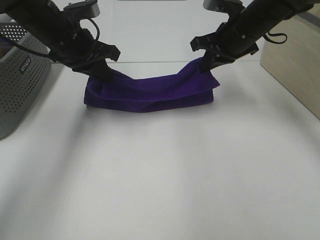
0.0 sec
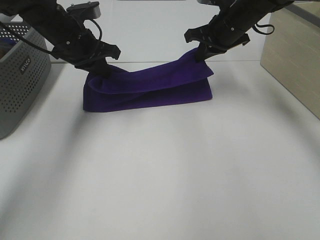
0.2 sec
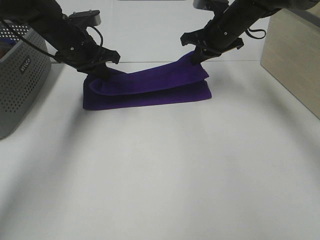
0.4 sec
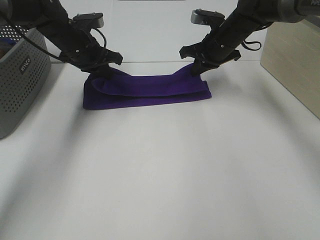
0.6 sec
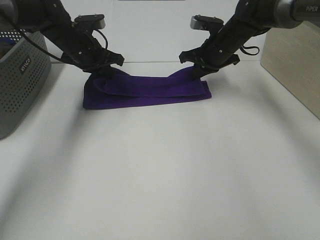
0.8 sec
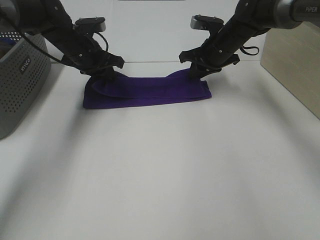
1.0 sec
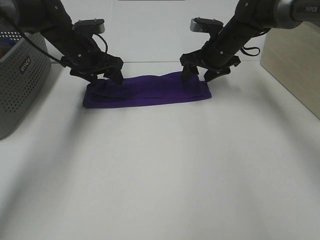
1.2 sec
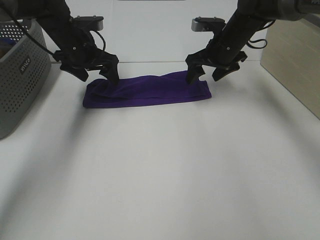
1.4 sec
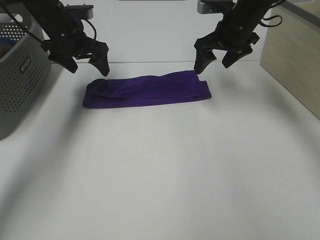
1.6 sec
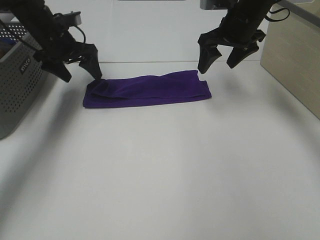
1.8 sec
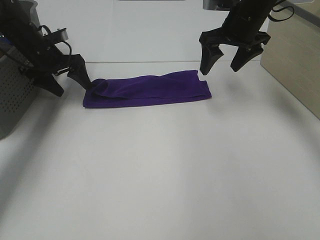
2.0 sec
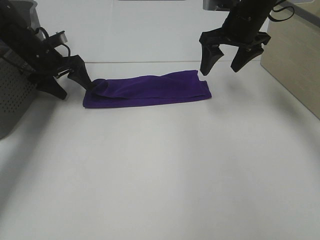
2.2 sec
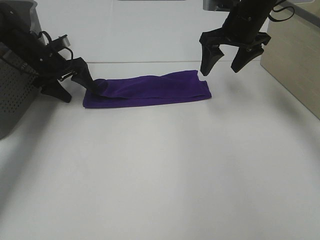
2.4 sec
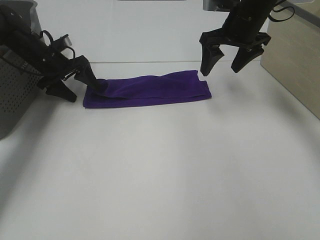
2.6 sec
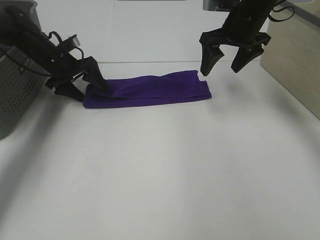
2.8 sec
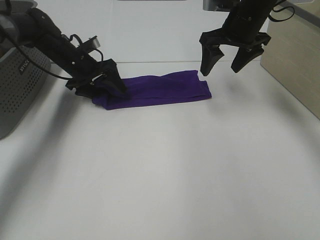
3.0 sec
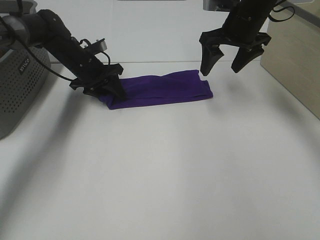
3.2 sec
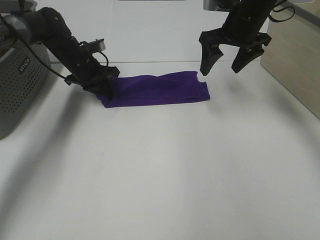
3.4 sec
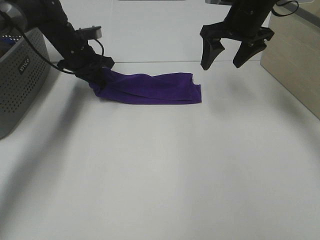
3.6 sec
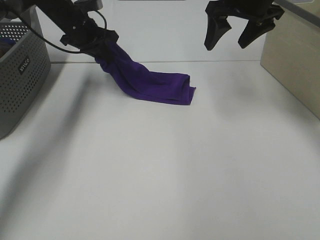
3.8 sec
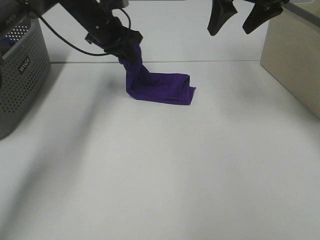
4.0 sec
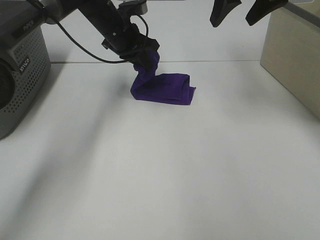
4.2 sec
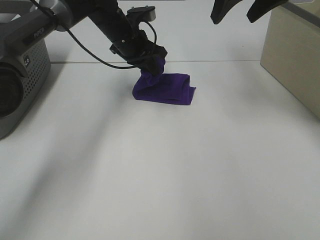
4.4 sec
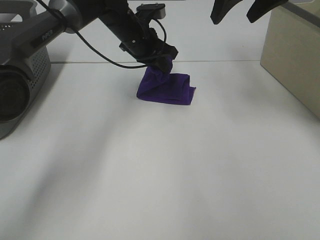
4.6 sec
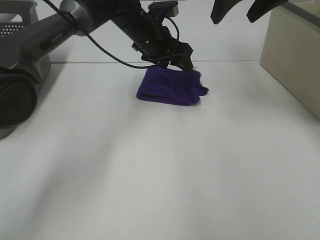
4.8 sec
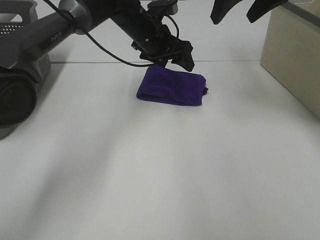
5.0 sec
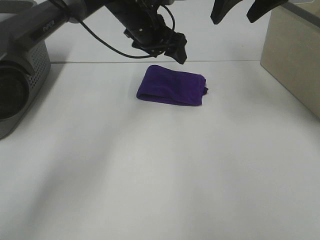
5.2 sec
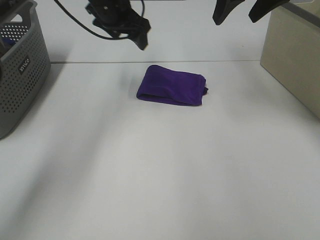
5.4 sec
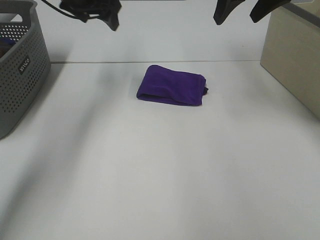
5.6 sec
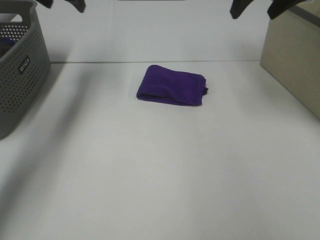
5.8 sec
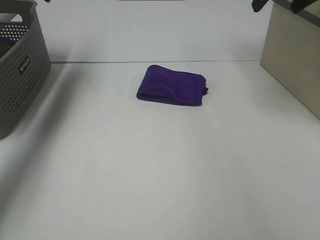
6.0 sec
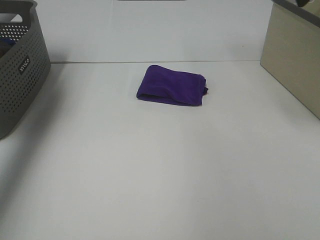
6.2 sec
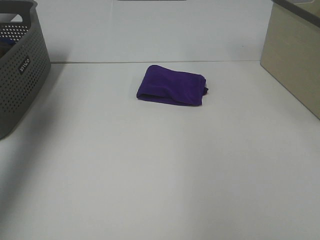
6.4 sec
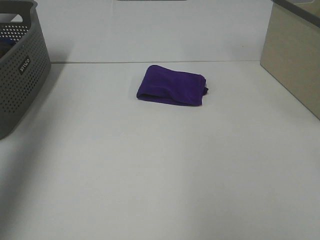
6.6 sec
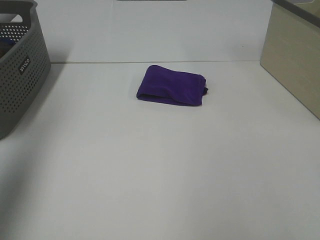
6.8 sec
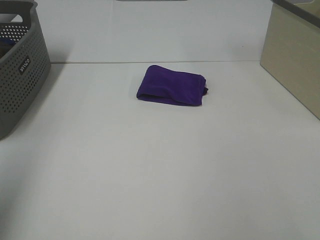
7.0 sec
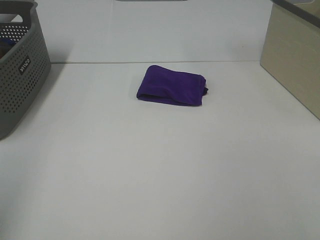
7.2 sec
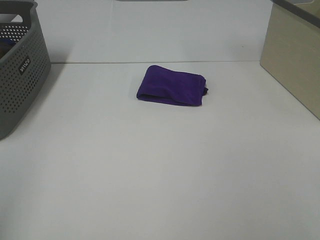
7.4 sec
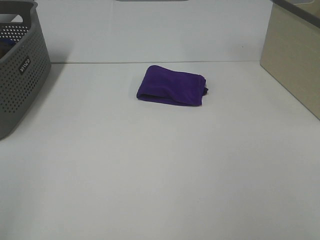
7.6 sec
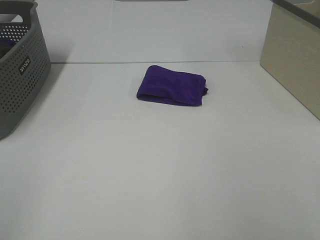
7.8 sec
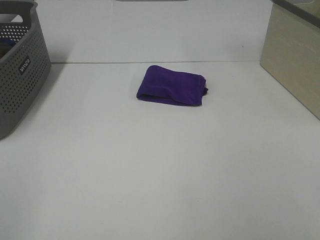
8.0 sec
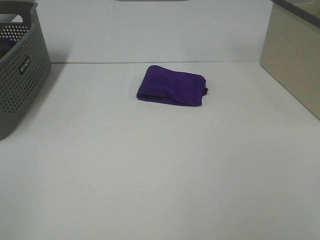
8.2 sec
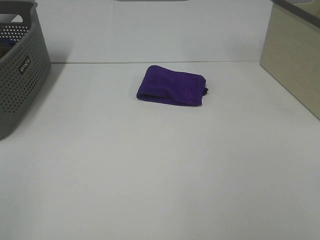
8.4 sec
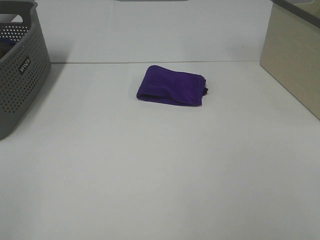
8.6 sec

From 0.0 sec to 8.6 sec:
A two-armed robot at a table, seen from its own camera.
Task of the whole recording: Fold towels.
Step, from 1.0 sec to 4.6 sec: Left hand: fold the purple towel from left to right.
From 0.0 sec to 1.4 sec: The left gripper is displaced forward by about 10 cm, and opens; the right gripper travels forward by some 5 cm, and opens.
From 1.4 sec to 2.8 sec: The right gripper travels upward by roughly 5 cm. The left gripper heads downward and to the left, covering roughly 10 cm.
From 2.8 sec to 4.4 sec: The left gripper heads to the right and upward, covering roughly 20 cm, and closes its fingers, while the right gripper heads upward, covering about 10 cm.
From 4.4 sec to 5.8 sec: The left gripper travels to the left and upward by some 20 cm, and opens its fingers.
From 5.8 sec to 7.2 sec: The grippers both shift backward by about 40 cm.

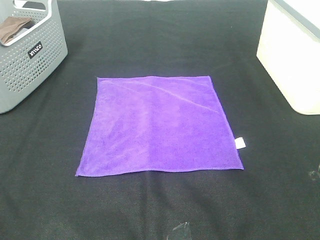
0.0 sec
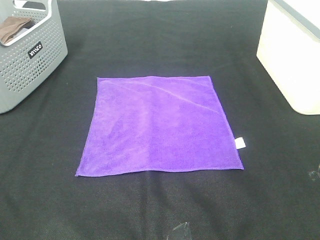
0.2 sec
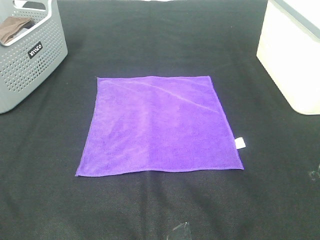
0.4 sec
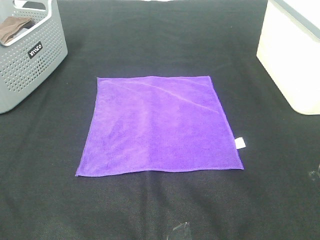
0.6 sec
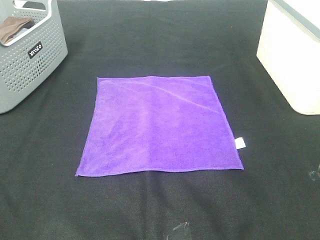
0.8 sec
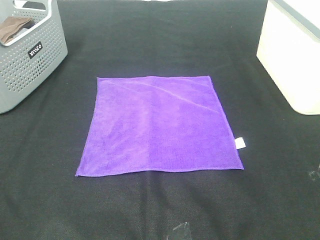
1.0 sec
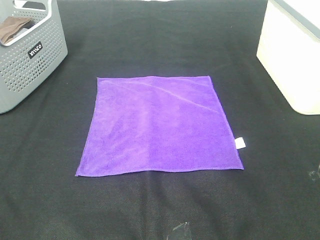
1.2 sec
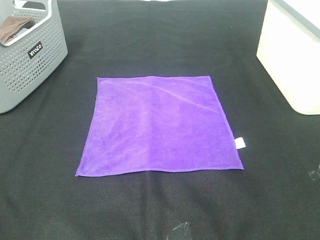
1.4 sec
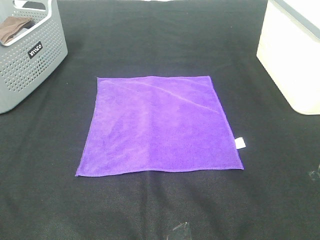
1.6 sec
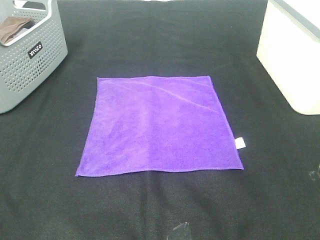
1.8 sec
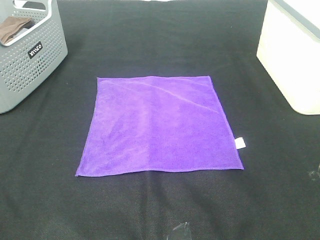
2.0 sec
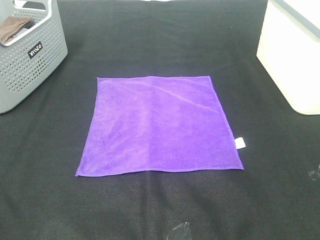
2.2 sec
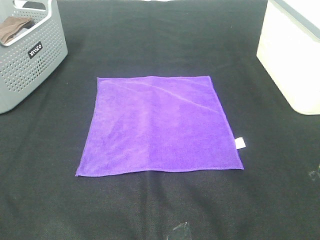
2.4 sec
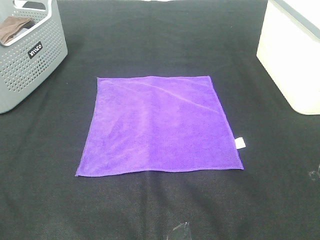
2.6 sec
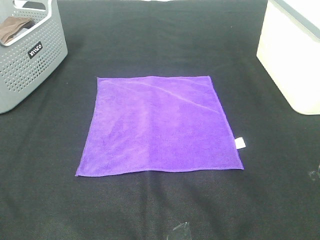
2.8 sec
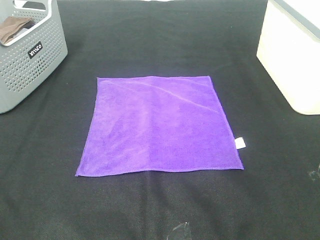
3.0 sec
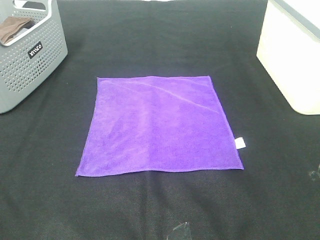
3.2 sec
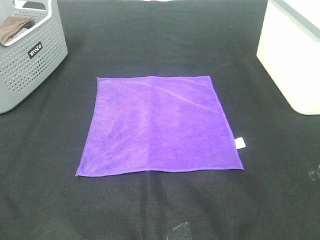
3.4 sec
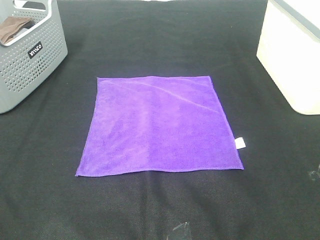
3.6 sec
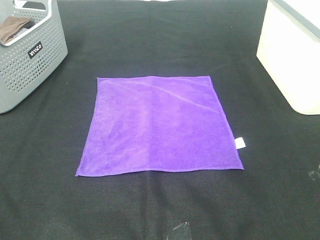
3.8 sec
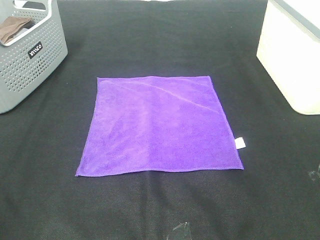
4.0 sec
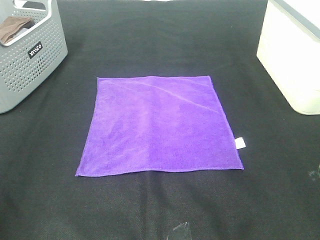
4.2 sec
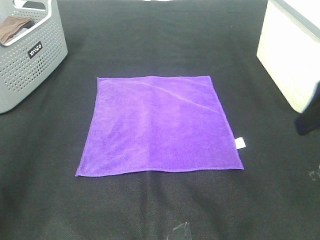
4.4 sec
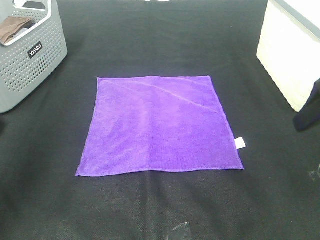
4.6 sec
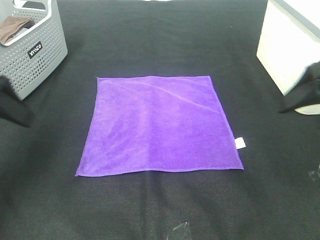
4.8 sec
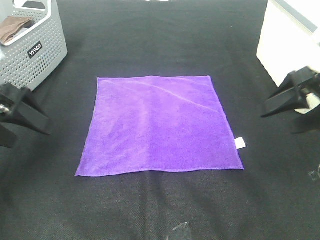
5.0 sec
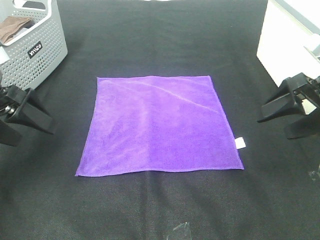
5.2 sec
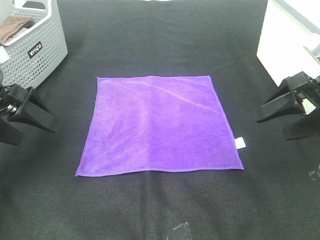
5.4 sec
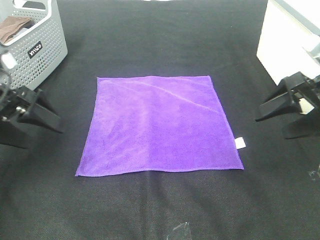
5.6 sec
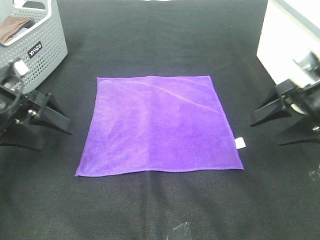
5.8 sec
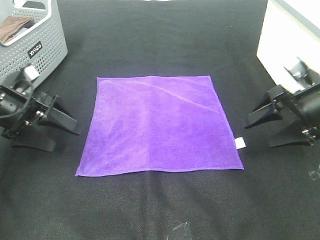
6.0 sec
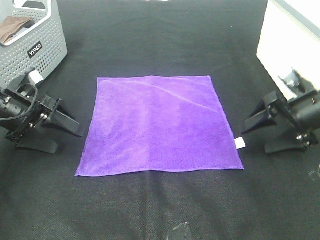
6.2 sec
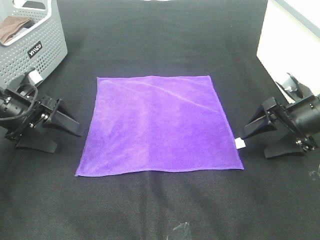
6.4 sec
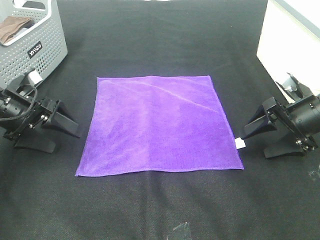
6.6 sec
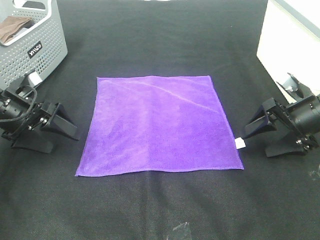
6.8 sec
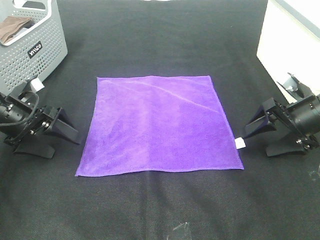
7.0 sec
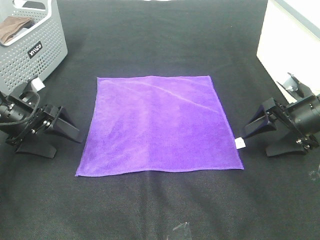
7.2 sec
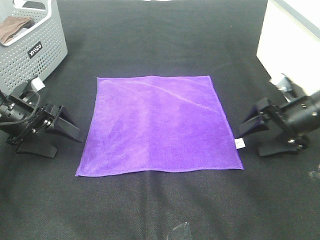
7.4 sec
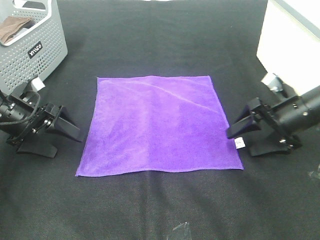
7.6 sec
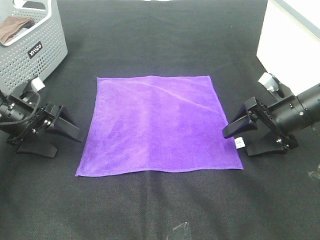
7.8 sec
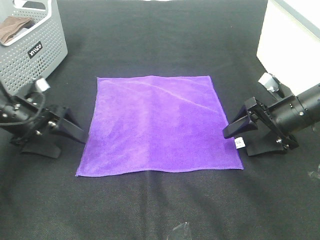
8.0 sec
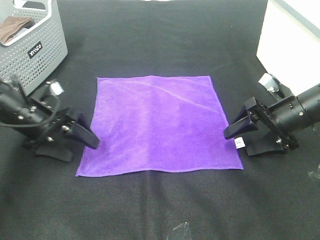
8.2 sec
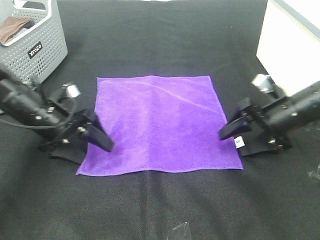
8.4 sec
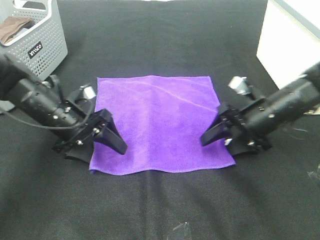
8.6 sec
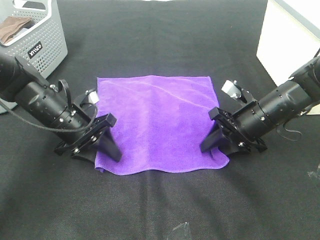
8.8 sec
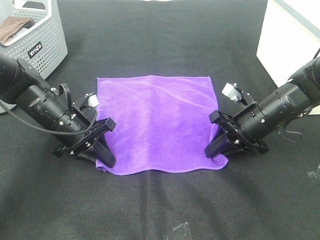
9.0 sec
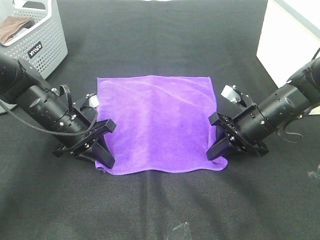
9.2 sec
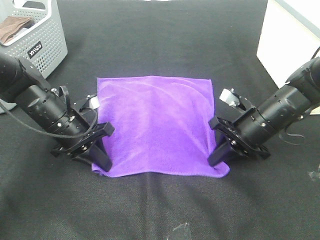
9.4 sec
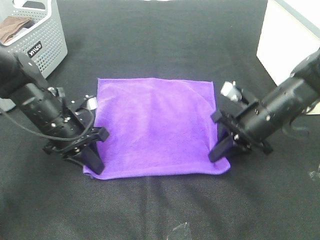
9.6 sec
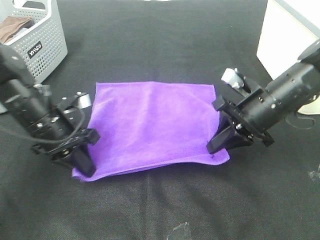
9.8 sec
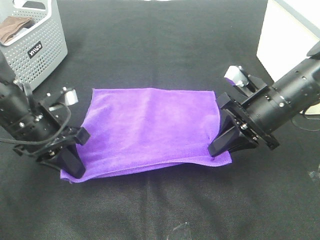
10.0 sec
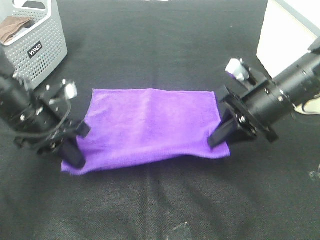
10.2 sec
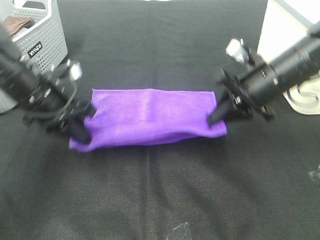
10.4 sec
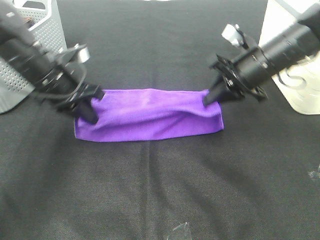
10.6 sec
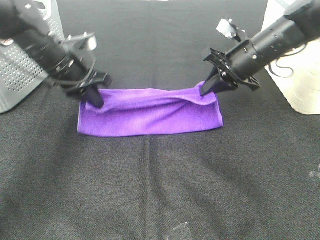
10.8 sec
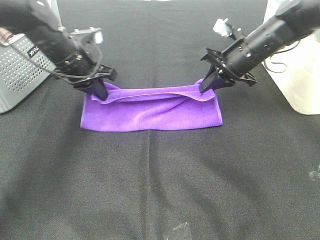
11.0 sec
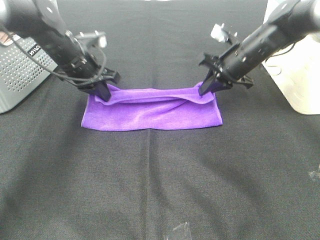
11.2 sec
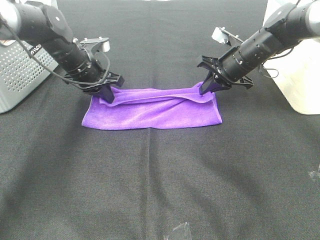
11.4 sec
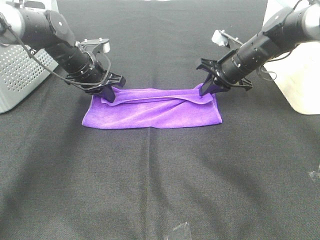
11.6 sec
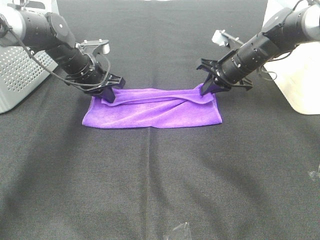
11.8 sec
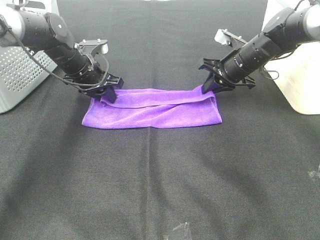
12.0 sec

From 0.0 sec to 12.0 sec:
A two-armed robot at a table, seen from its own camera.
Task of the whole recording: Fold towels.
Step, from 0.0 sec to 9.0 sec: Left hand: grab the bottom left corner of purple towel.
Step, from 0.0 sec to 9.0 sec: Right hand: grab the bottom right corner of purple towel.
Step, from 9.2 sec to 11.6 sec: Left hand: fold the purple towel up.
Step, from 9.2 sec to 11.6 sec: Right hand: fold the purple towel up.
From 0.0 sec to 3.0 sec: Both grippers stay about where they are.
From 3.0 sec to 4.4 sec: The two grippers go roughly 20 cm forward.
From 4.4 sec to 6.0 sec: Both grippers travel together downward and forward, some 20 cm.
From 6.0 sec to 7.6 sec: The right gripper shifts by roughly 5 cm.
From 7.6 sec to 9.0 sec: The right gripper moves to the left, approximately 5 cm, and closes up. Meanwhile the left gripper moves to the right, roughly 10 cm, and closes.
From 9.0 sec to 10.4 sec: Both grippers move upward, about 10 cm.
From 10.4 sec to 12.0 sec: The right gripper is displaced forward and downward by roughly 15 cm; the left gripper moves forward, some 15 cm, and opens up.

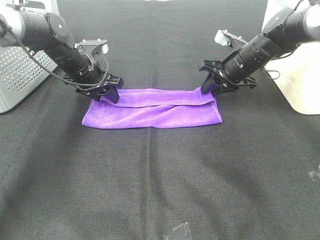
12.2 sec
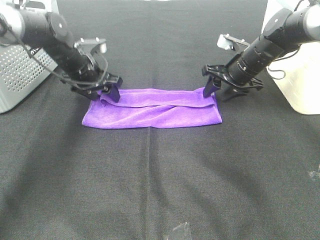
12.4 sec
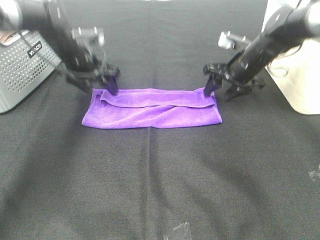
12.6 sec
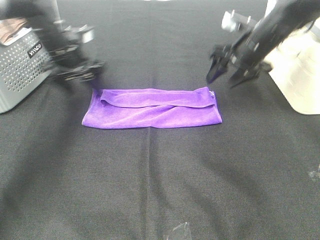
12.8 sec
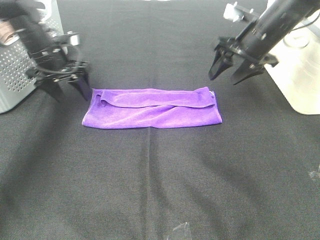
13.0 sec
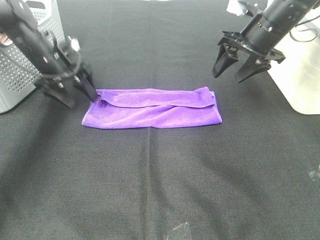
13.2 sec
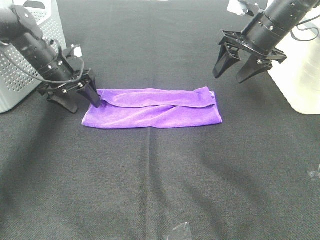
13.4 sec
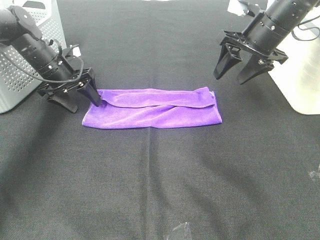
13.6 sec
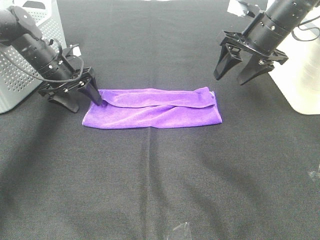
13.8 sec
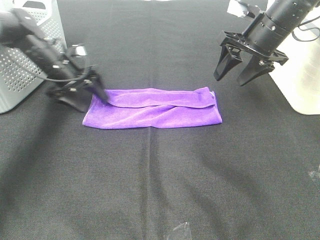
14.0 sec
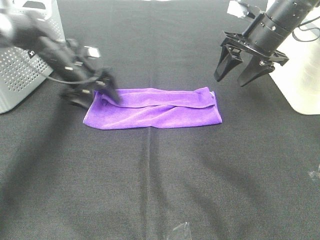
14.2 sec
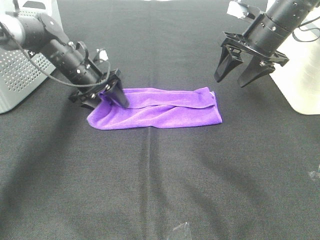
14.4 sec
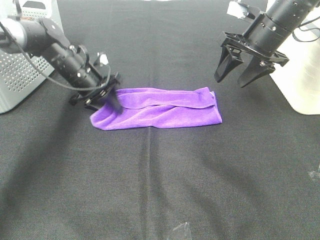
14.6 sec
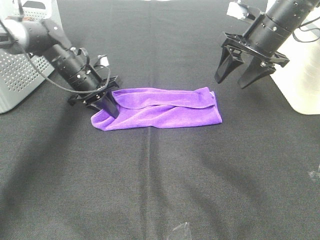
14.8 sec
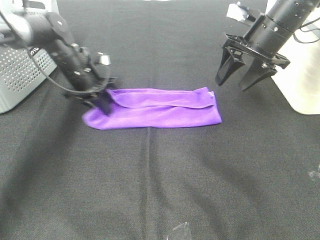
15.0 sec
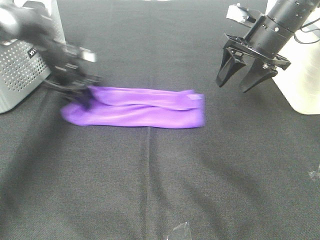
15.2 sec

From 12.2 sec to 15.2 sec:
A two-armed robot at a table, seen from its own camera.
Task of the whole recording: Fold towels.
From 12.2 sec to 13.8 sec: The right gripper shifts roughly 10 cm upward. Meanwhile the left gripper shifts approximately 5 cm to the left.
From 13.8 sec to 15.2 sec: The left gripper closes its fingers.
